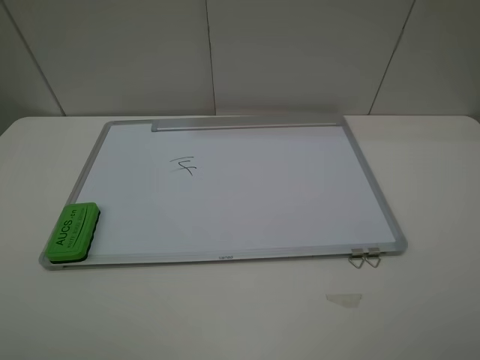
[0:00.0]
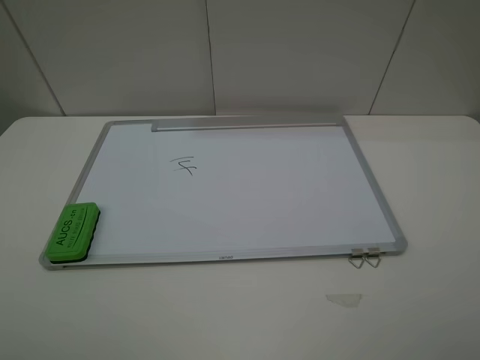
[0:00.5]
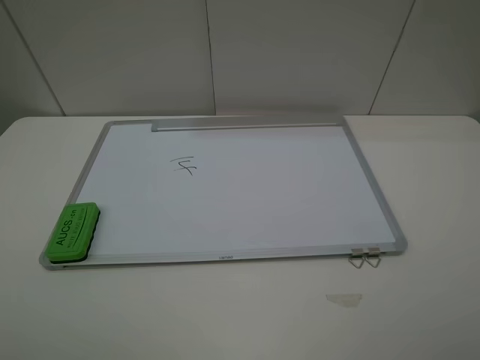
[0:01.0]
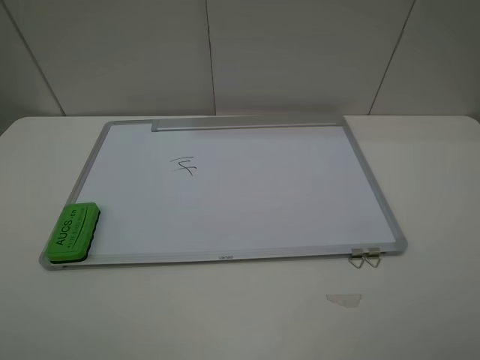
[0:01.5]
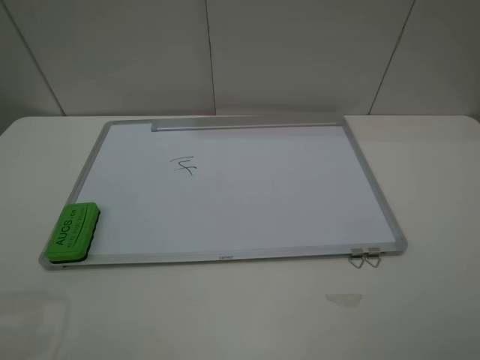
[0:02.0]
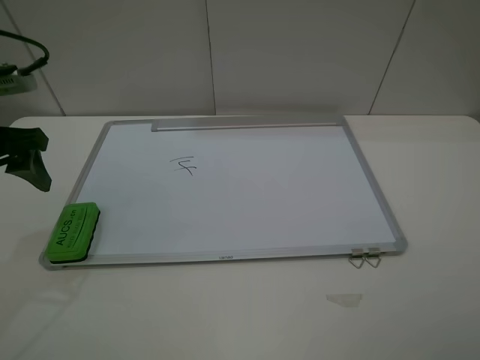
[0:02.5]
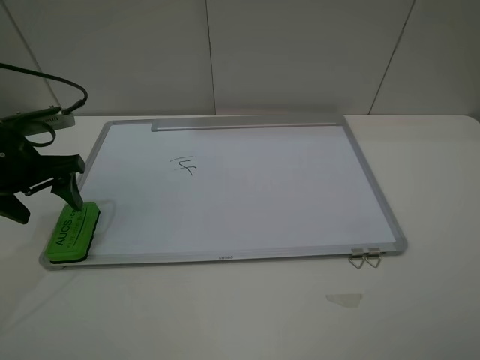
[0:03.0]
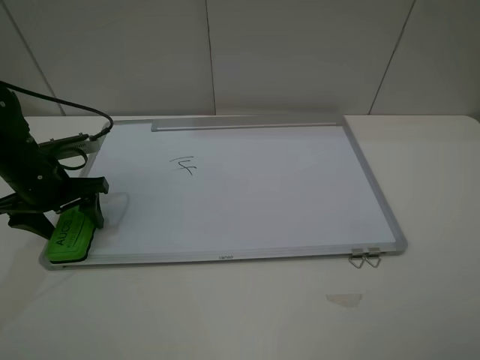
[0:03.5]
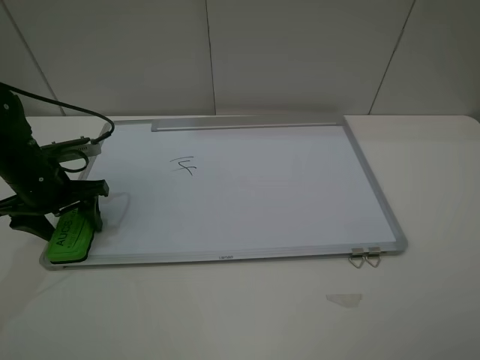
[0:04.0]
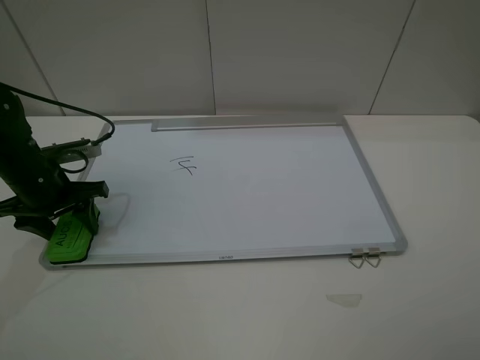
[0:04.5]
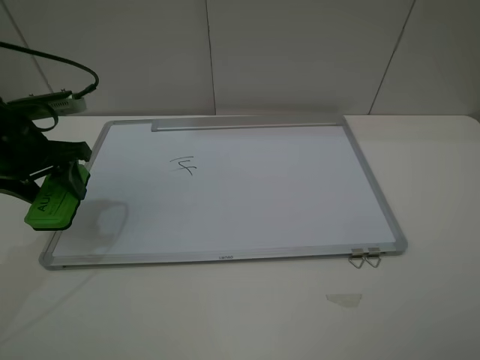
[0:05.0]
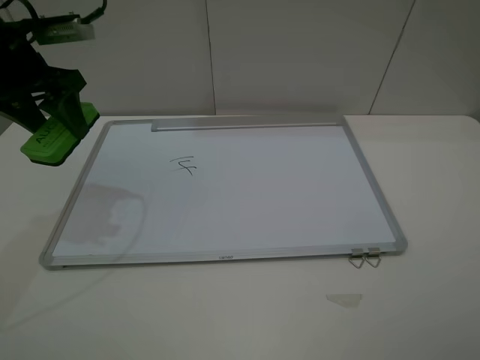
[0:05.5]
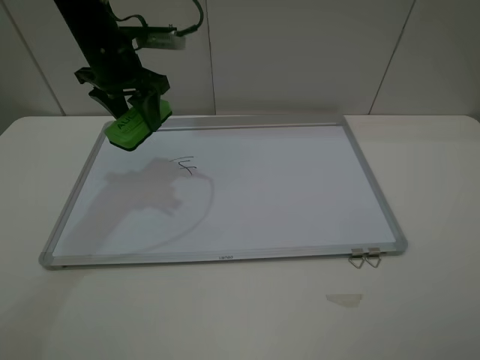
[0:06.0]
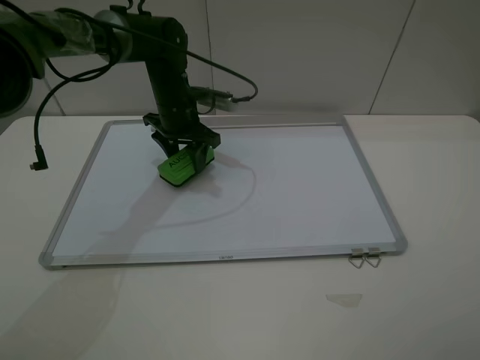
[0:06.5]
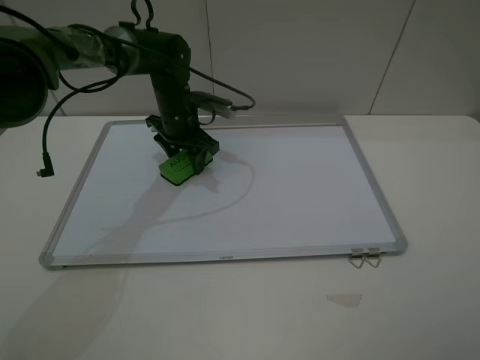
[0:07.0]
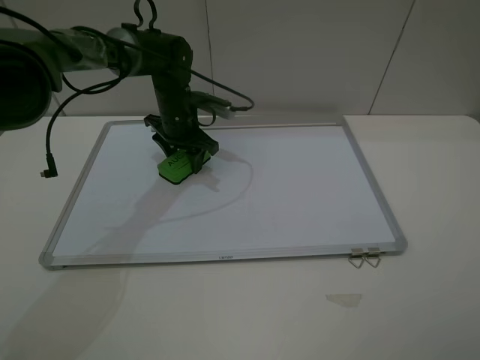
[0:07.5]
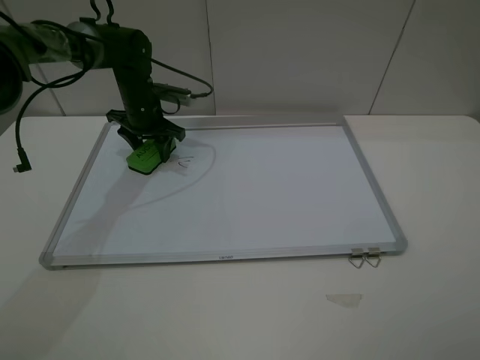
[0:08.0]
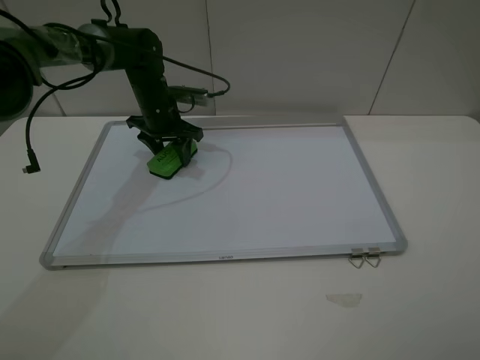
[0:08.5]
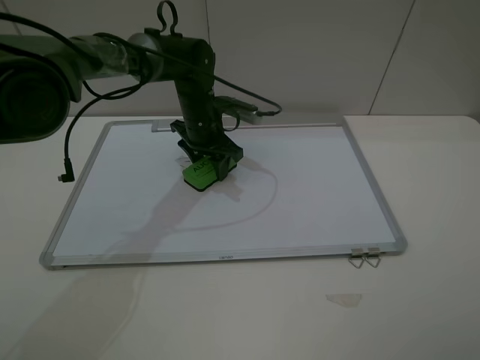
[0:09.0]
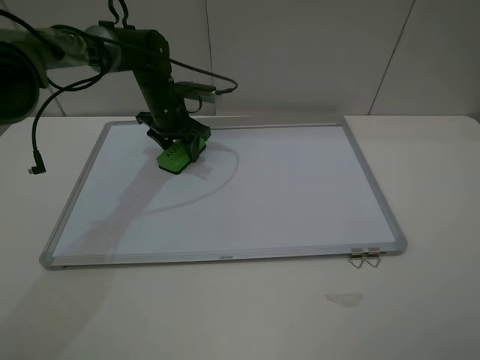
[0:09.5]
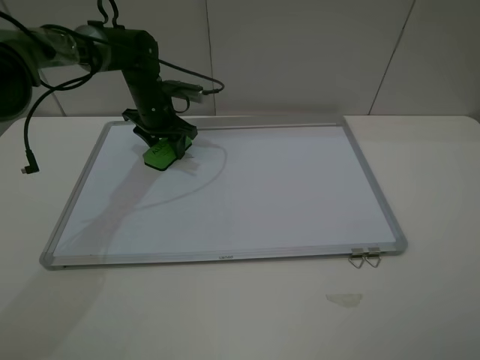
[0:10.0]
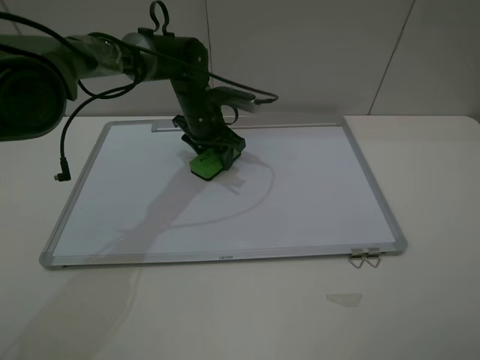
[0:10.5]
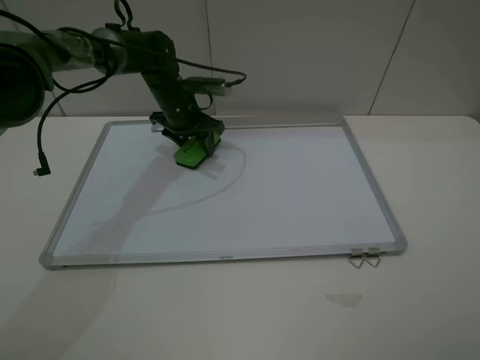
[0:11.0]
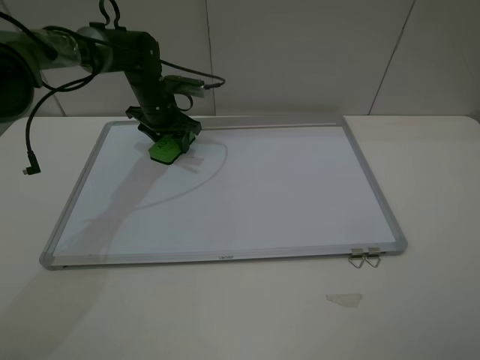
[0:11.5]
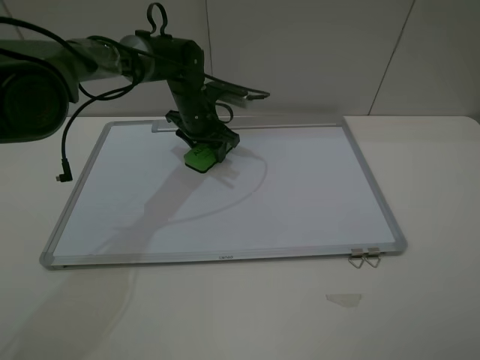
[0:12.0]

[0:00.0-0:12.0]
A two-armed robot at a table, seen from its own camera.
Step, 0:00.0 to 0:04.0: Grasp the eraser with the left gripper.
0:02.0 to 0:04.0: The left gripper travels downward and forward by roughly 25 cm, and closes its fingers.
0:04.0 to 0:06.0: The left gripper shifts some 20 cm forward, upward and to the right, and closes.
0:06.0 to 0:08.0: The left gripper is displaced downward and forward by approximately 15 cm.
0:08.0 to 0:10.0: The left gripper moves approximately 10 cm to the right and comes back.
0:10.0 to 0:12.0: The left gripper moves left and right over approximately 10 cm, changing direction 2 times.

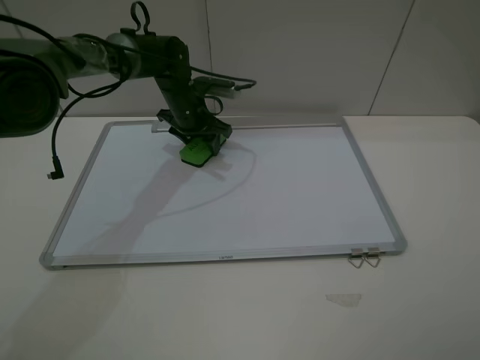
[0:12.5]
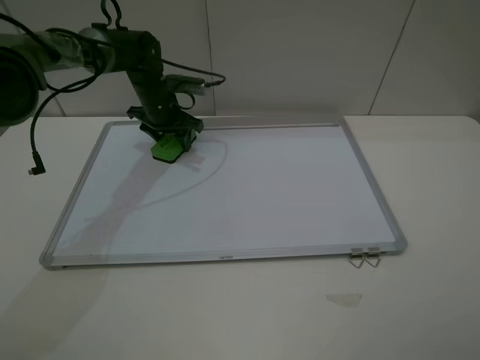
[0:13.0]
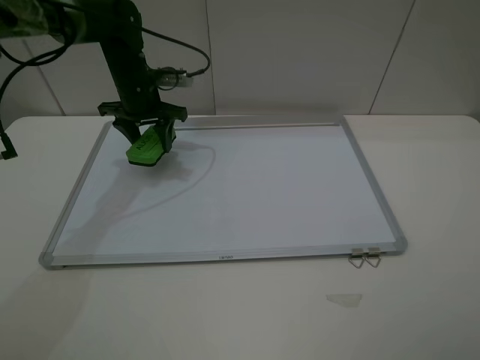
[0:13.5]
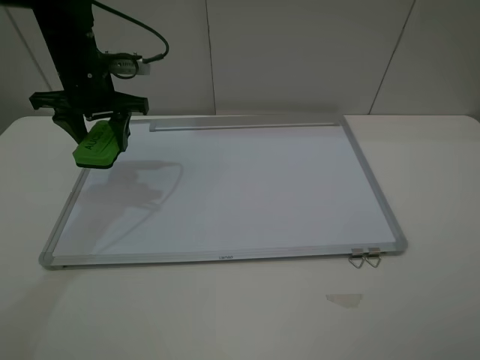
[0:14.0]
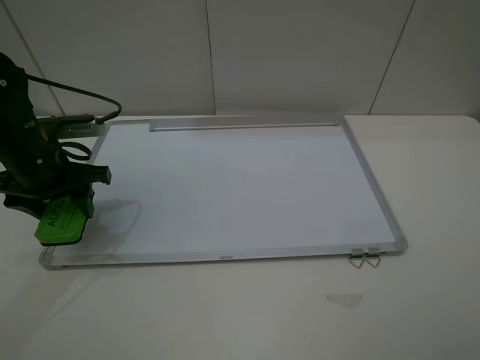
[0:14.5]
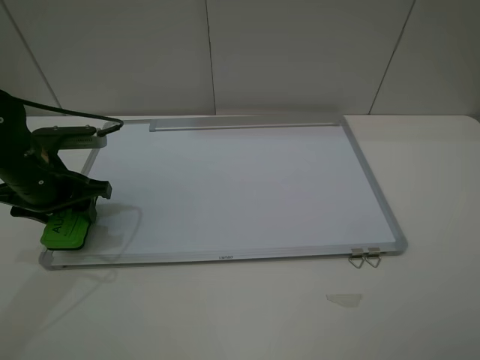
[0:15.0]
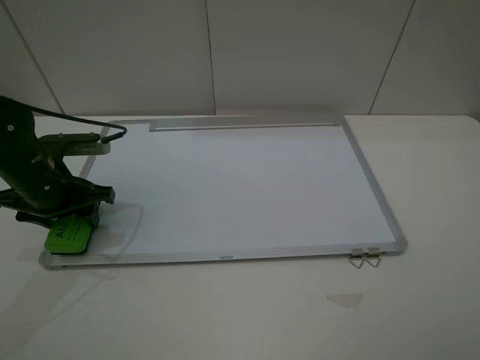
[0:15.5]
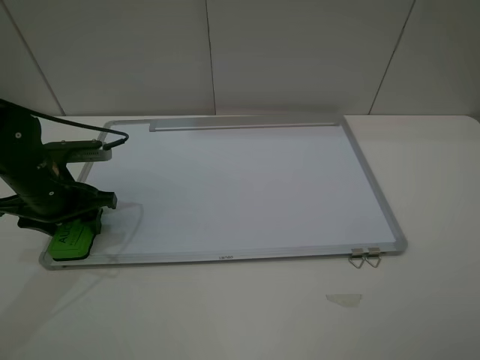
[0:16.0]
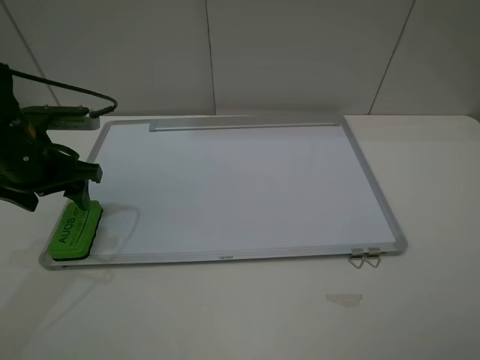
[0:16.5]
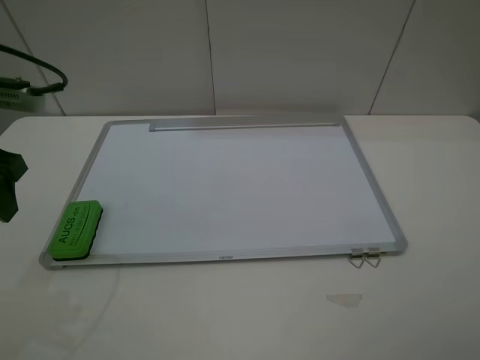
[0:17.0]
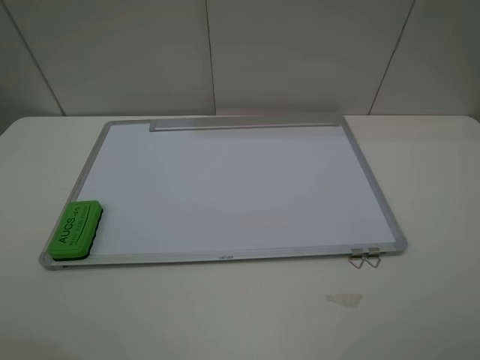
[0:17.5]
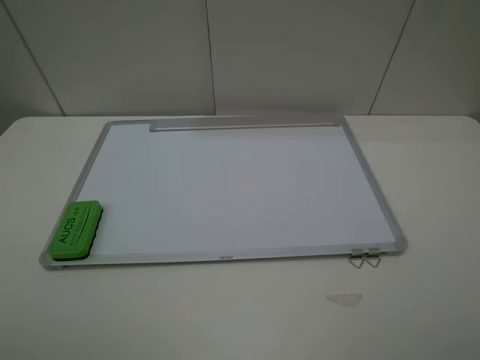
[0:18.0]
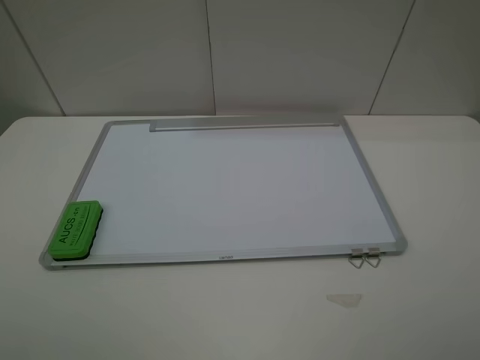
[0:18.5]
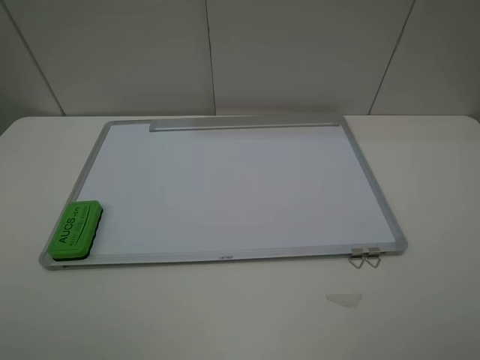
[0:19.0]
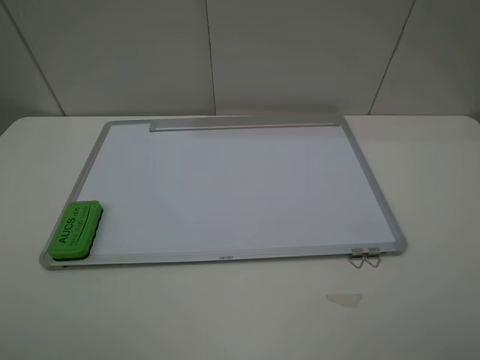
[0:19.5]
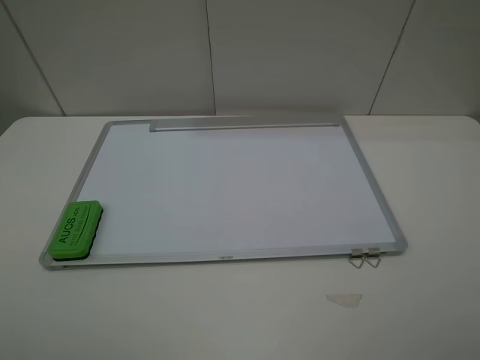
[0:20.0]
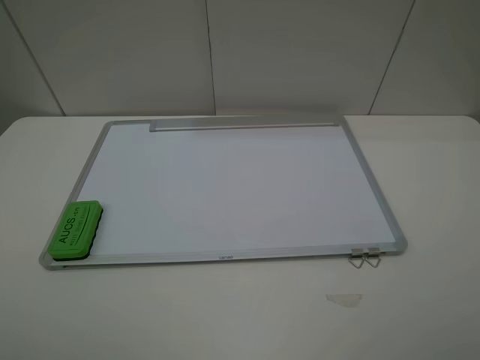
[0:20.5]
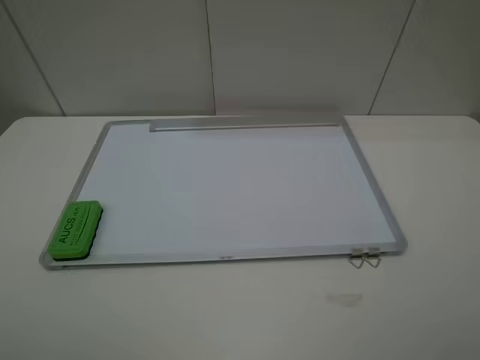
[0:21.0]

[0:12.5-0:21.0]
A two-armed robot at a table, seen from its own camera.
Step, 0:13.5 to 0:16.0: Place the eraser with the left gripper.
0:12.5 to 0:14.5: The left gripper moves backward and to the left, roughly 25 cm.
0:14.5 to 0:16.5: The left gripper opens up.
0:16.5 to 0:19.0: The left gripper is displaced backward and upward by roughly 25 cm.

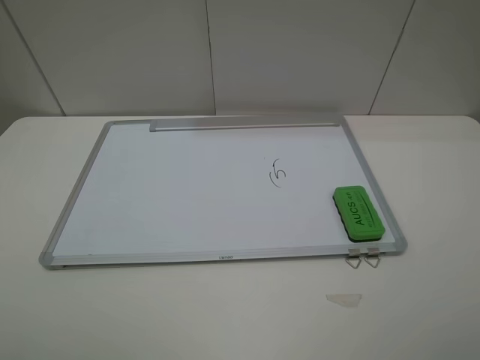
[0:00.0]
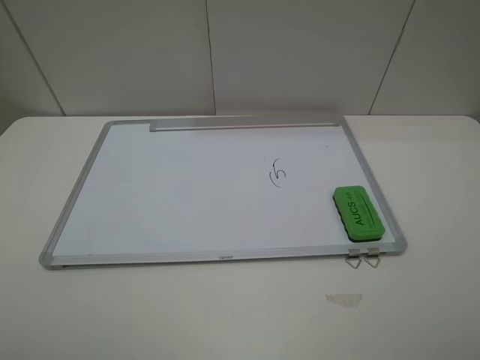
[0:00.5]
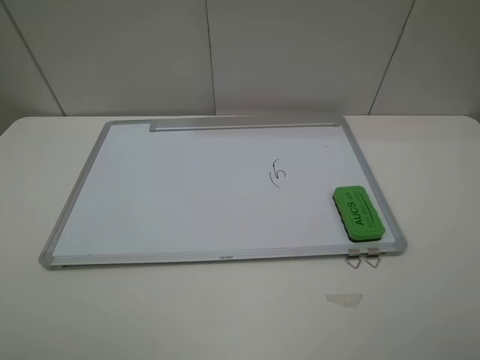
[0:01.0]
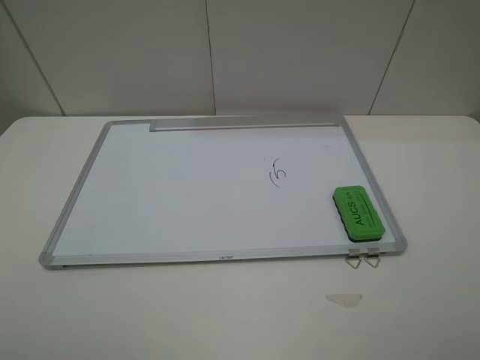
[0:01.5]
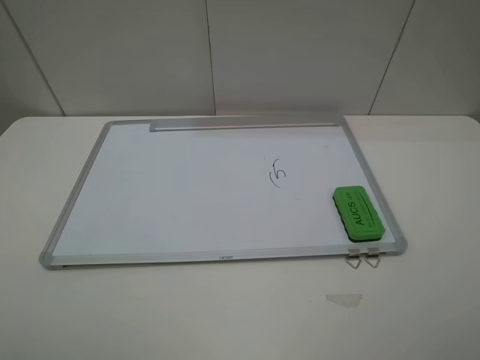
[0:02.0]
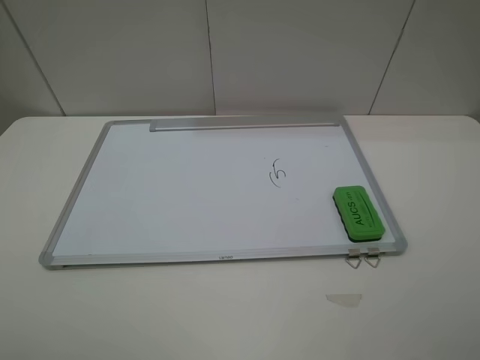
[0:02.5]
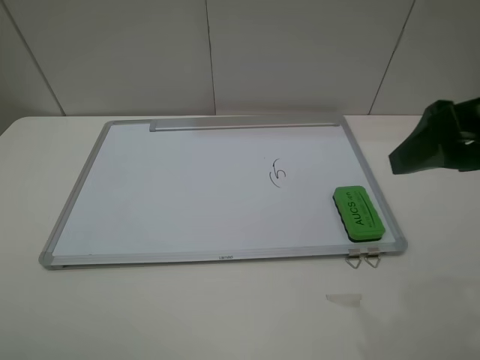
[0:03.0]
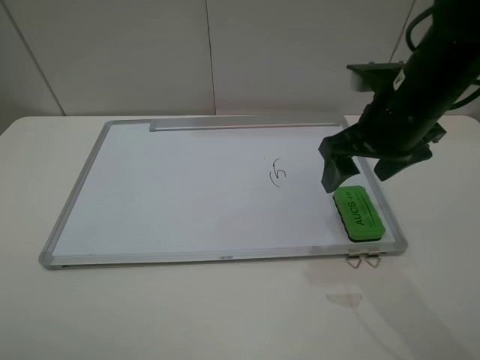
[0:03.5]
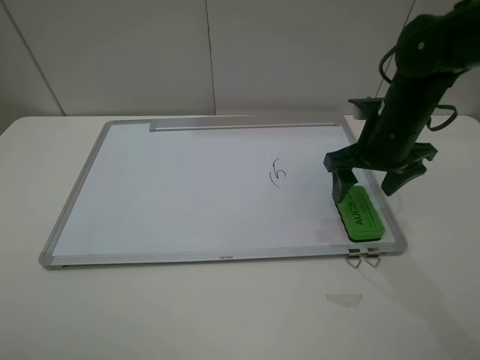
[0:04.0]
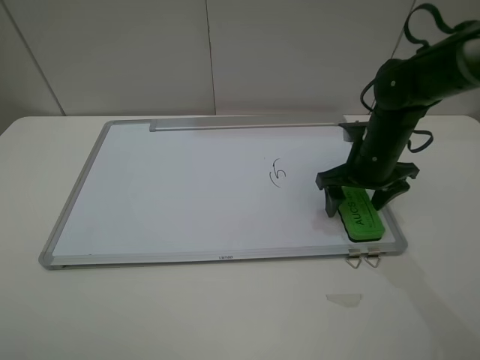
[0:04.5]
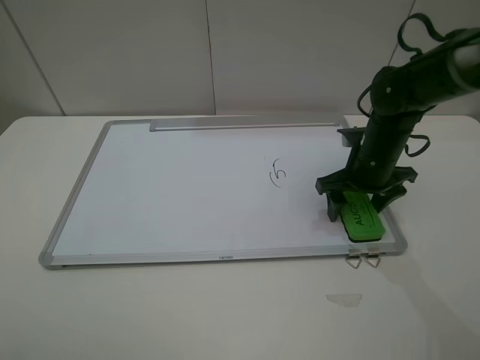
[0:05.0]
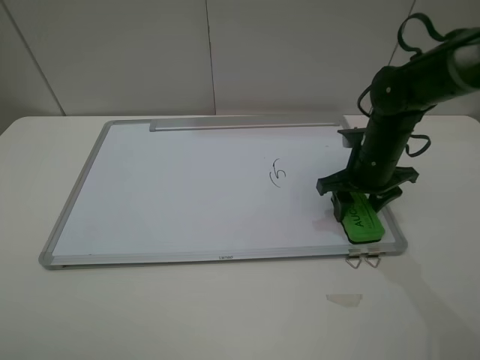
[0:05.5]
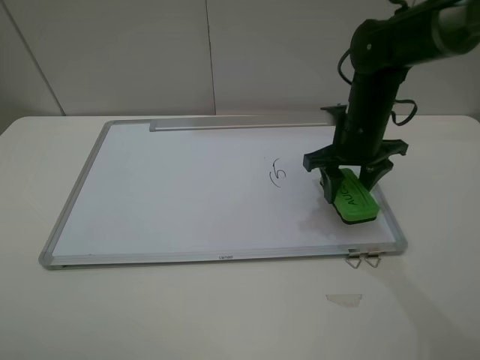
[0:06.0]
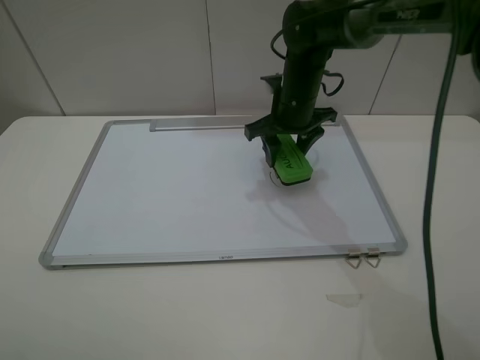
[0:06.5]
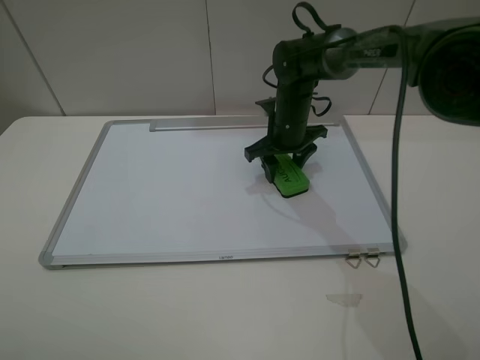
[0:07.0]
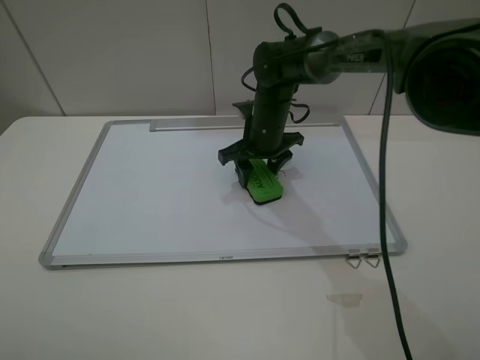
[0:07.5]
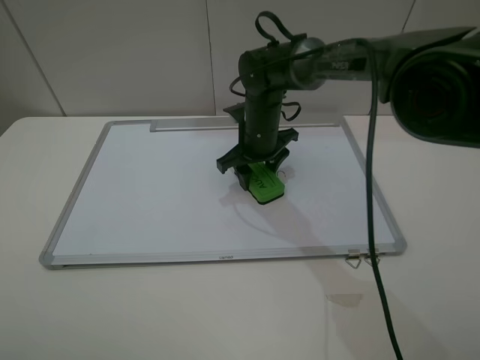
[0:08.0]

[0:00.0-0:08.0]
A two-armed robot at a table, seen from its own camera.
Step, 0:00.0 to 0:05.0: Grasp the eraser with the right gripper.
0:00.0 to 0:02.0: Neither gripper changes place.
0:02.0 to 0:04.0: The right gripper travels forward by about 30 cm.
0:04.0 to 0:06.0: The right gripper ends up roughly 5 cm from where it was, and closes.
0:06.0 to 0:08.0: The right gripper is displaced to the left, downward and forward by approximately 15 cm.
